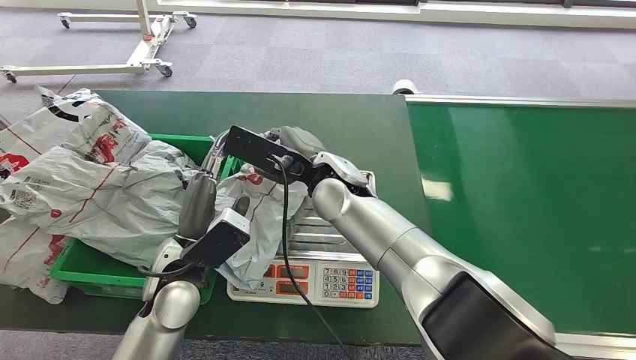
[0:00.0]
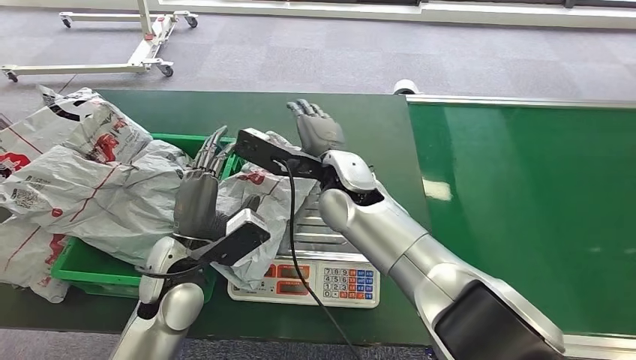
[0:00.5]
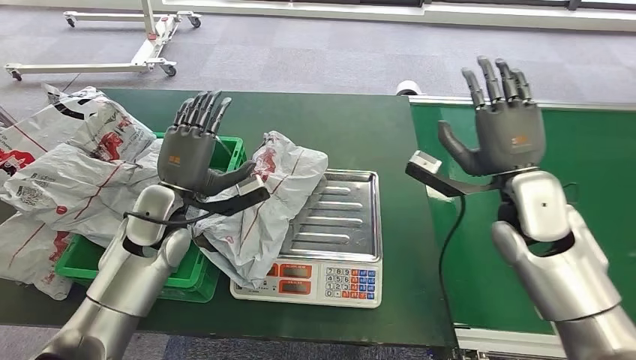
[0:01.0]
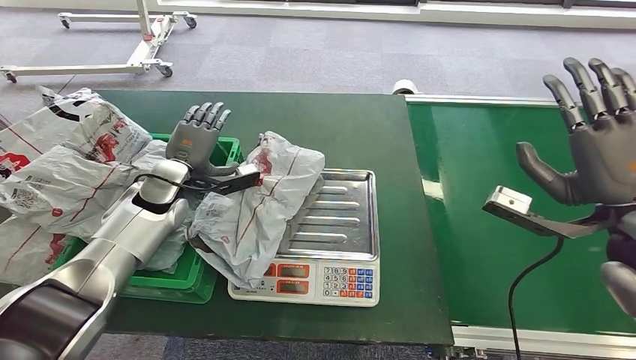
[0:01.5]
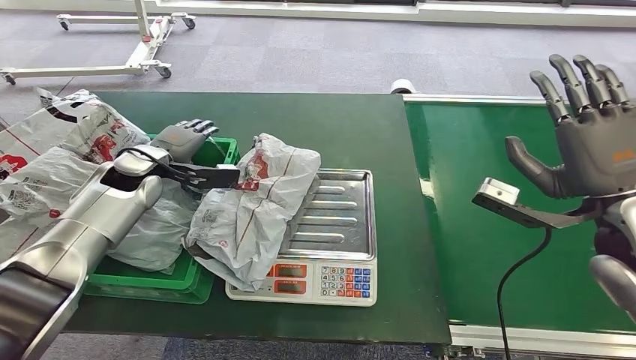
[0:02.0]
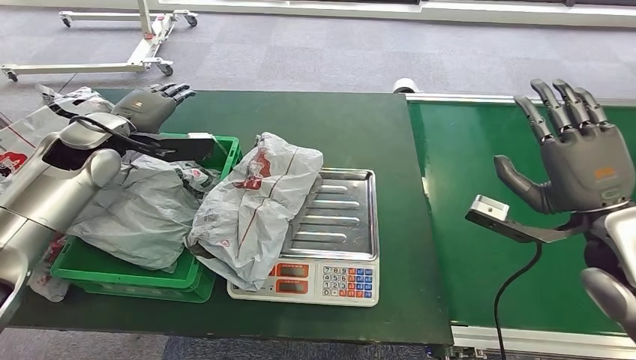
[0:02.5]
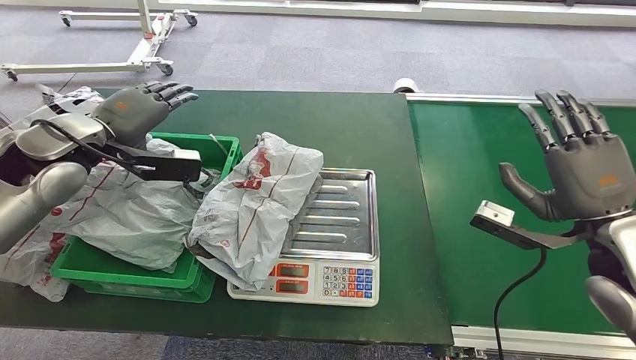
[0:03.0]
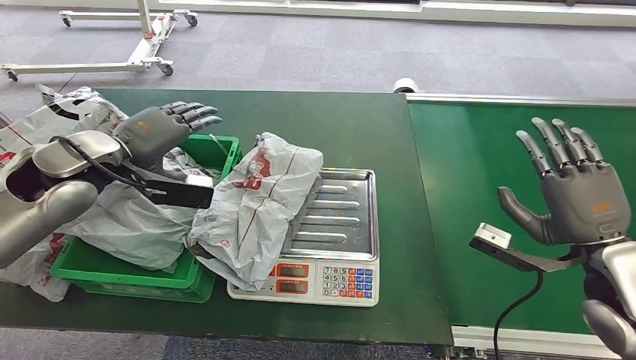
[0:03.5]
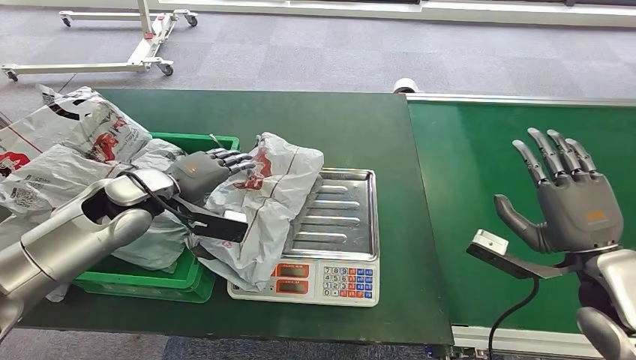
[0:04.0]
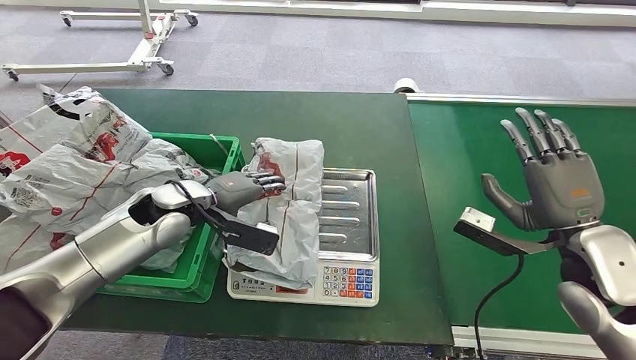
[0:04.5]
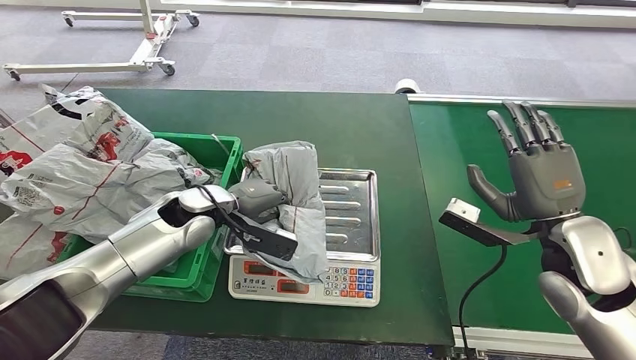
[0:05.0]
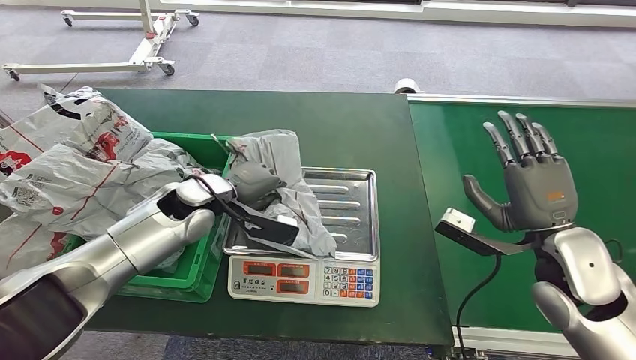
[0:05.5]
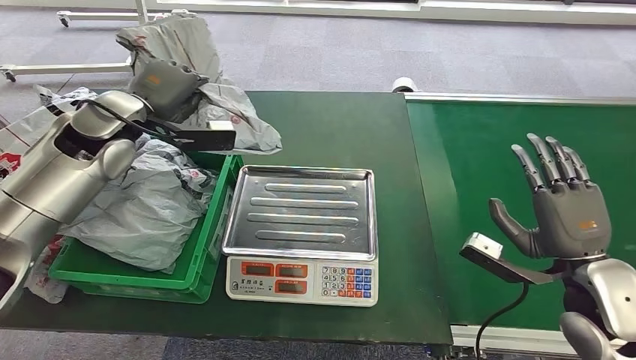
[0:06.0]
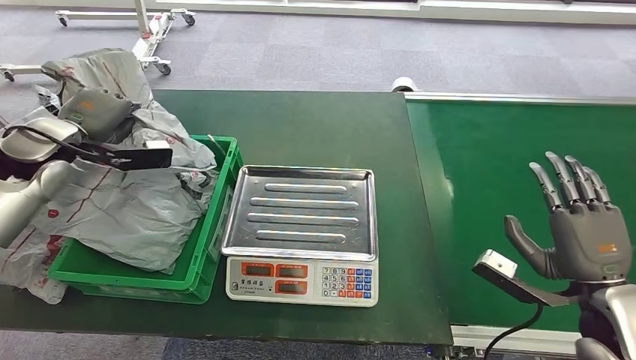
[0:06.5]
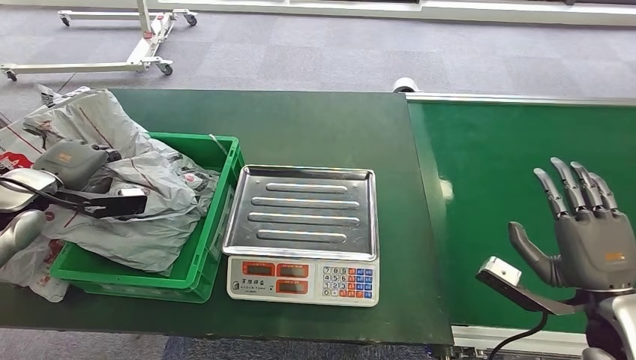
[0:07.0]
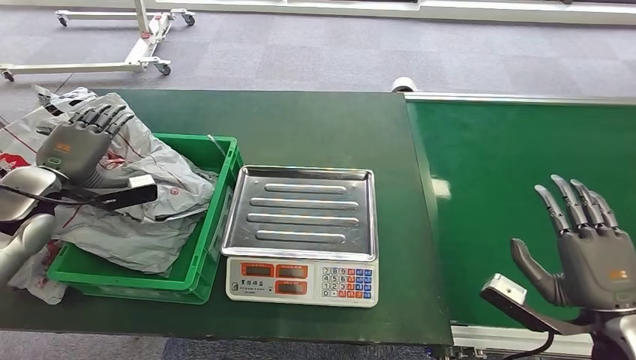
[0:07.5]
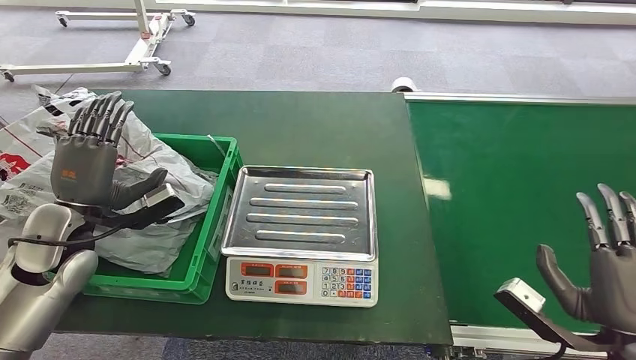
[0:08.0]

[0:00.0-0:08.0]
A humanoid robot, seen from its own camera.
Step, 0:01.0 to 0:05.5: Pick up the package from the inbound machine.
Step, 0:06.0 to 0:08.0: Place the package into the parcel locker.
